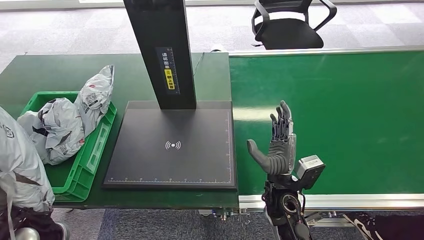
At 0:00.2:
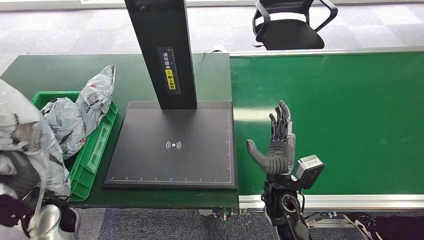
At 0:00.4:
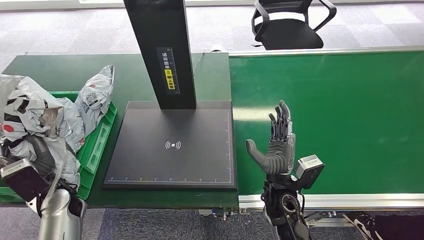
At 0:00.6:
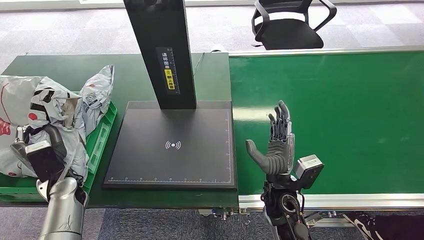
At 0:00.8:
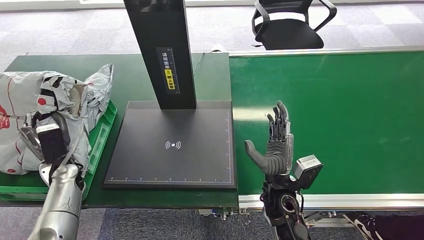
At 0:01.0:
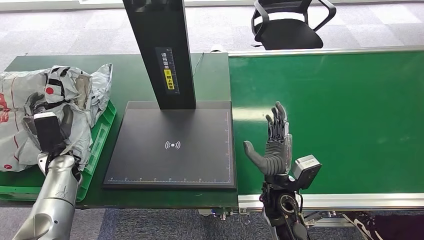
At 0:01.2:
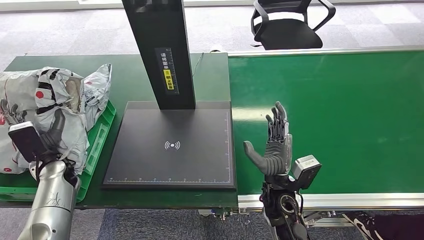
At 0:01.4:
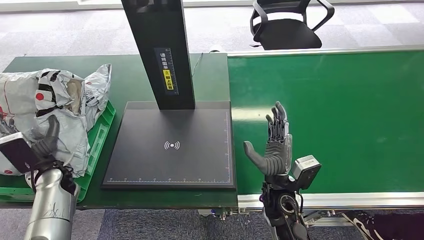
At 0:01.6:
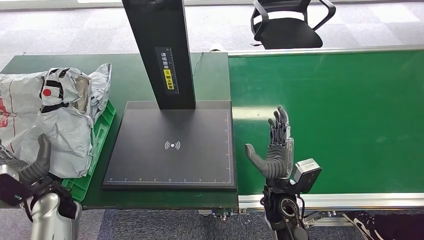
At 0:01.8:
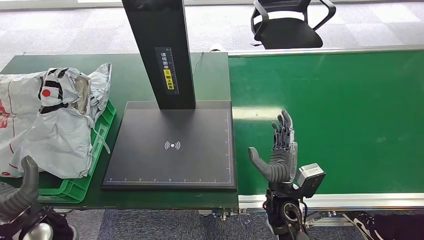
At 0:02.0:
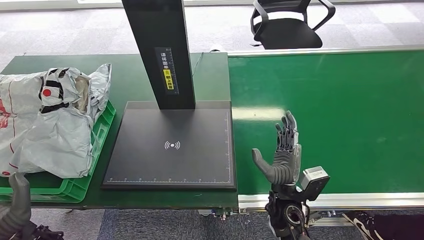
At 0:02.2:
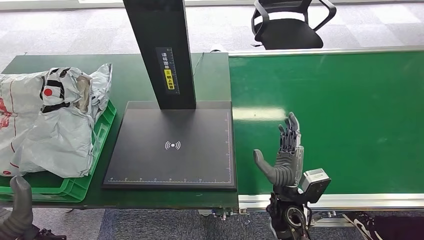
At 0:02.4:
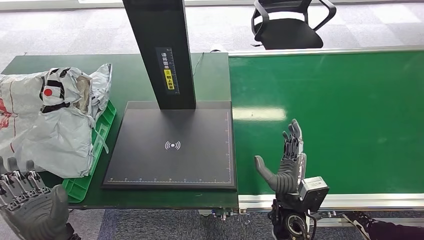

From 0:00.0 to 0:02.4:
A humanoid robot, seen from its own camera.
Task of the whole recording: Weigh the package on the weighing device and place it in the left basket.
Step, from 0:00.0 to 0:02.4: Place the package into the parcel locker.
From 0:00.0 to 0:01.2: The left hand is displaced forward and to the left by approximately 15 cm.
From 0:01.2 to 0:02.4: The left hand moves backward and to the right, some 25 cm.
